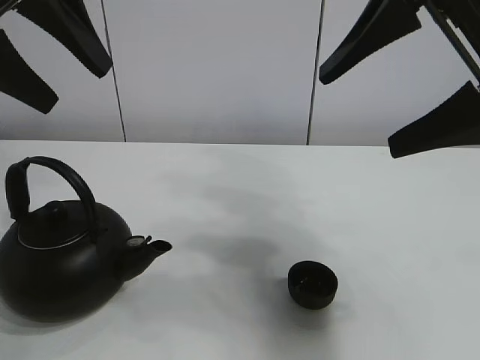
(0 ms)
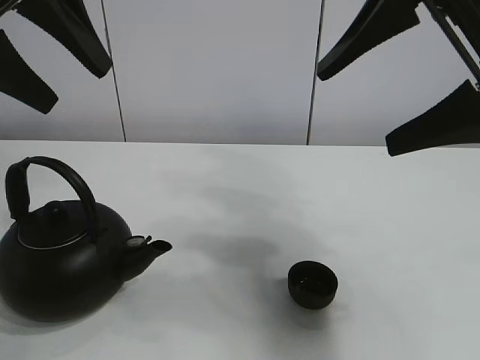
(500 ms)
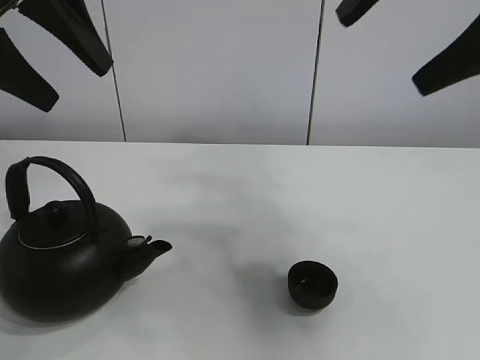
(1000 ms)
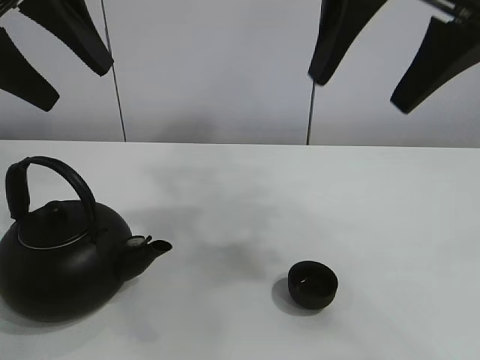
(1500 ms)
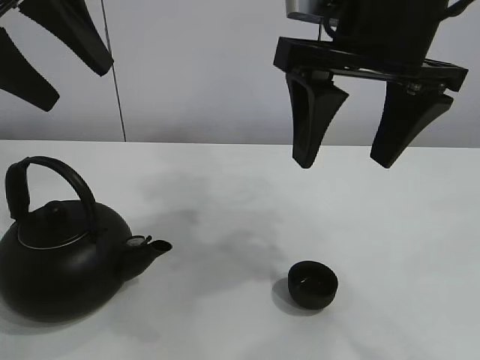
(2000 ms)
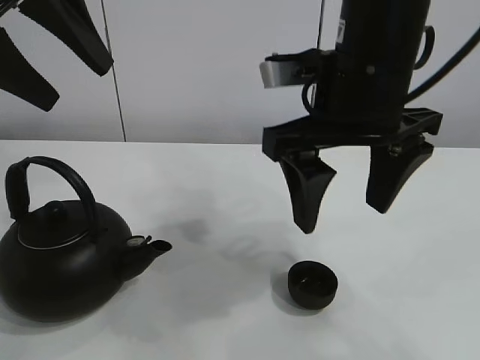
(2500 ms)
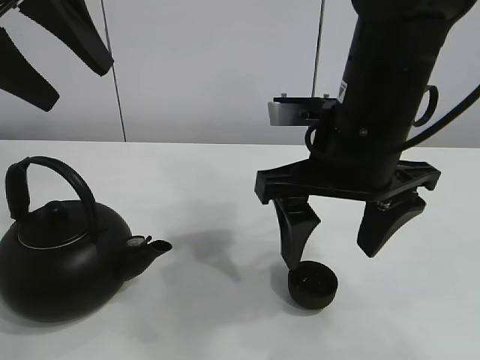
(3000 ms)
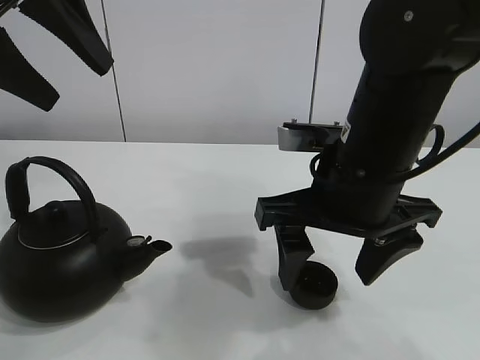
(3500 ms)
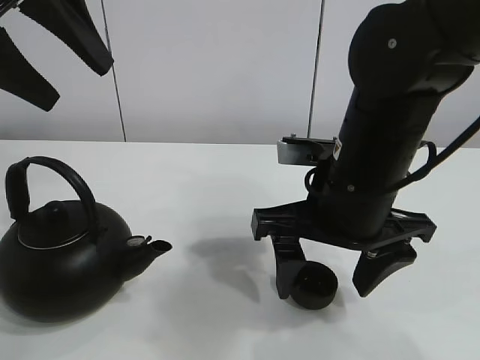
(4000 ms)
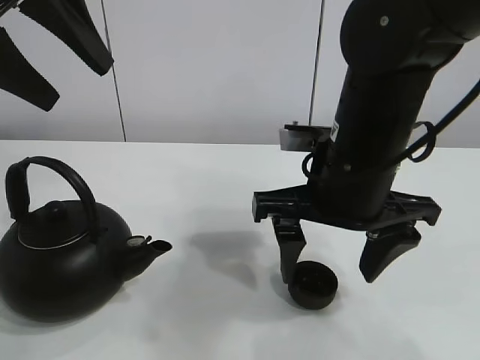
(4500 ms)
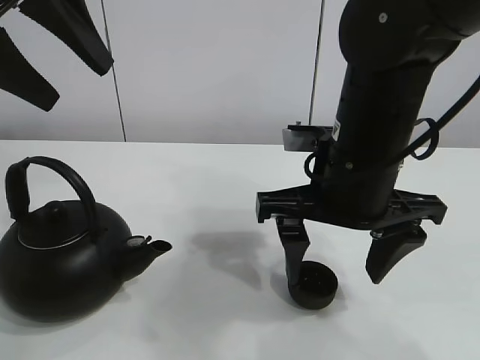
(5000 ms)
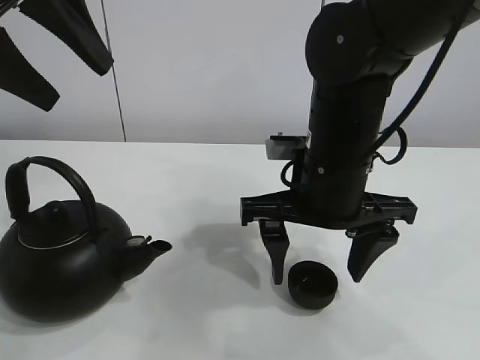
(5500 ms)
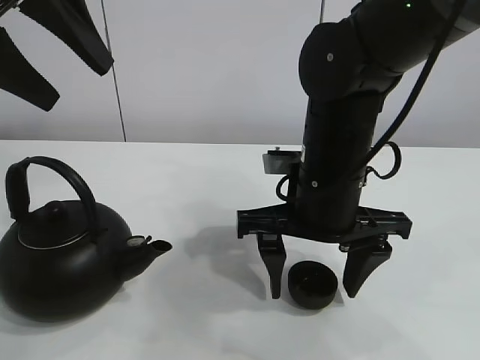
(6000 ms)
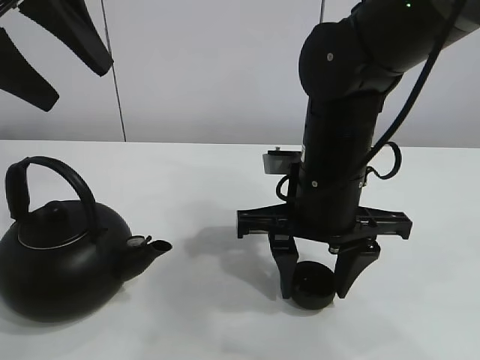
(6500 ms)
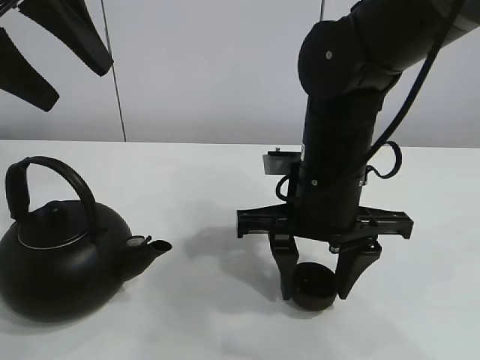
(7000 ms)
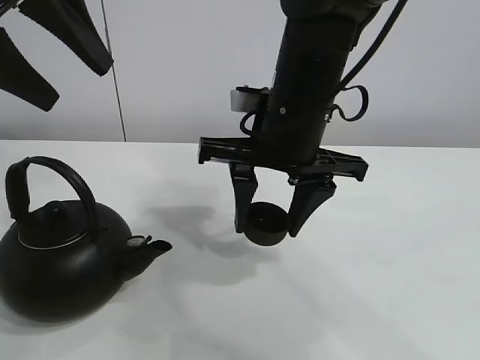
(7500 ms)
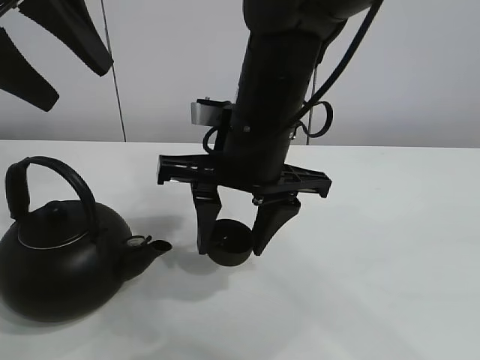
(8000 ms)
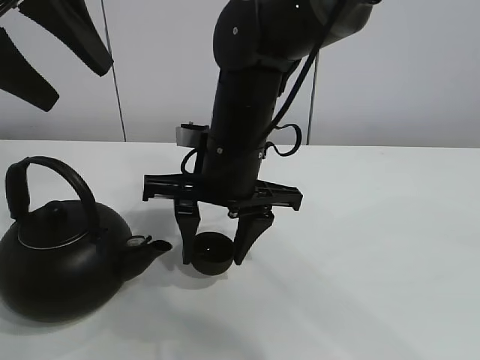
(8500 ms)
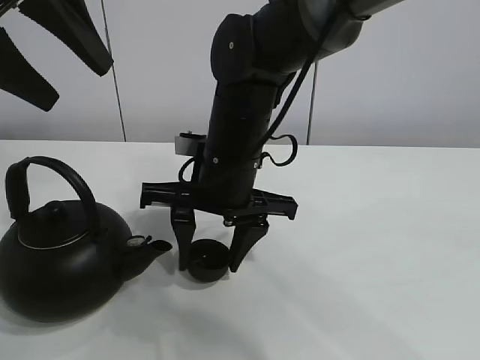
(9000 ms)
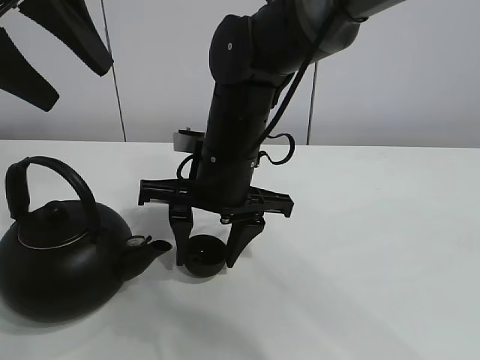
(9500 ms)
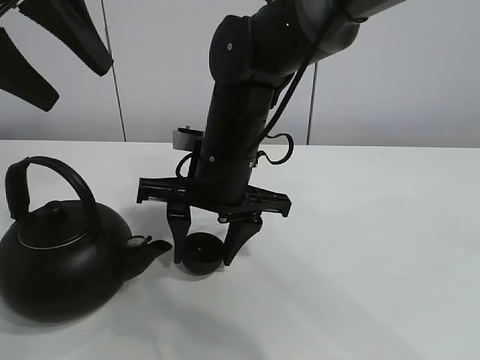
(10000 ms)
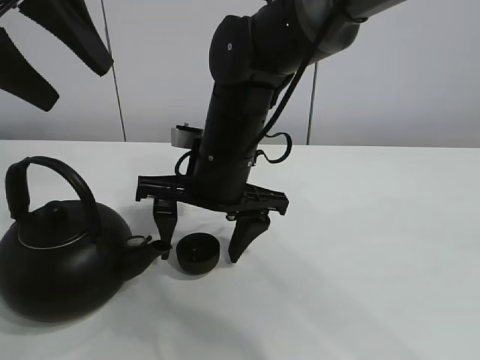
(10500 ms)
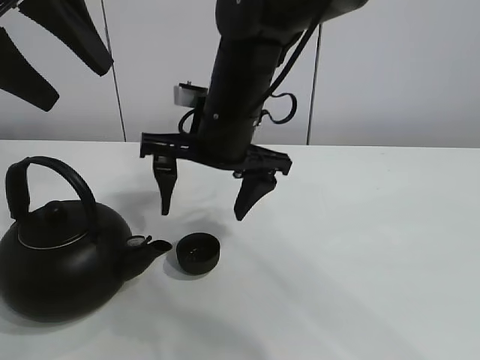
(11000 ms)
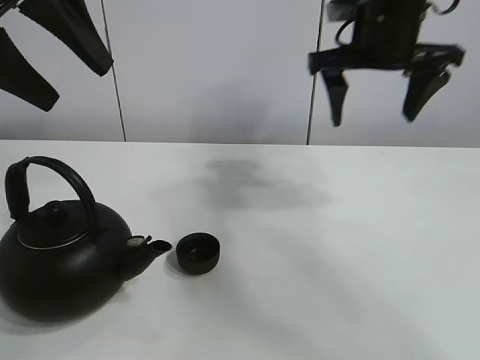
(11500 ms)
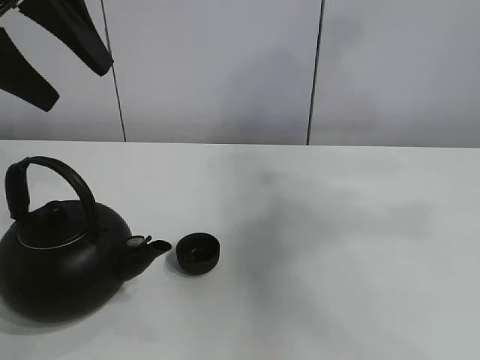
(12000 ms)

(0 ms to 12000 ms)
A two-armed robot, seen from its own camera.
Task of the whole recording: pour tea into the teacup.
Step, 0 ms - 7000 ms: Pick up the teacup with the right gripper.
Step, 7500 ms - 10000 ms: Place the teacup in the center of view with the right gripper.
2000 ms - 4000 ms: The right gripper moves downward, some 15 cm.
4000 ms - 6000 ms: The grippers make only small movements.
6000 ms - 8000 ms: The right gripper moves to the left, roughly 5 cm, and closes up.
8000 ms - 10000 ms: The right gripper changes place by approximately 5 cm.
10000 ms - 12000 ms: The right gripper is displaced to the right and upward by some 50 cm, and opens its fingers.

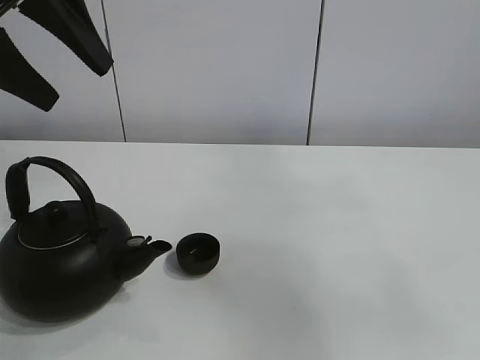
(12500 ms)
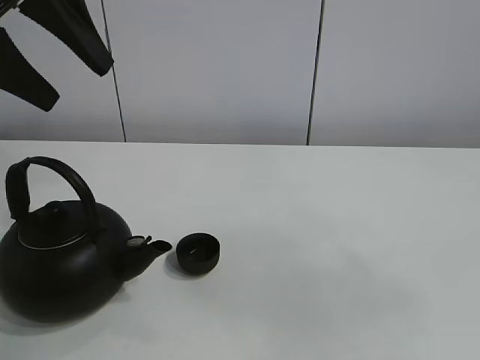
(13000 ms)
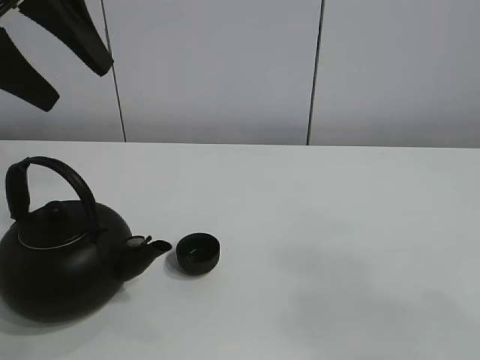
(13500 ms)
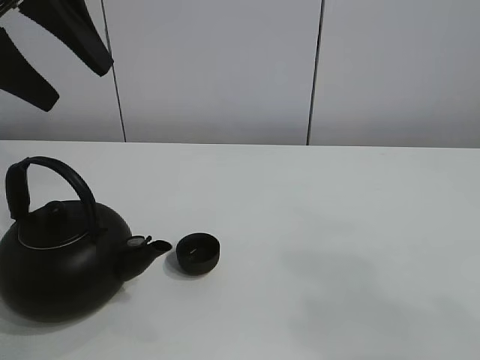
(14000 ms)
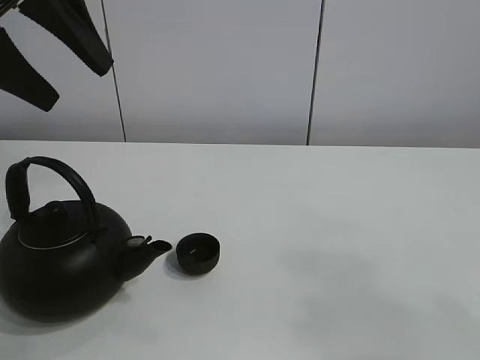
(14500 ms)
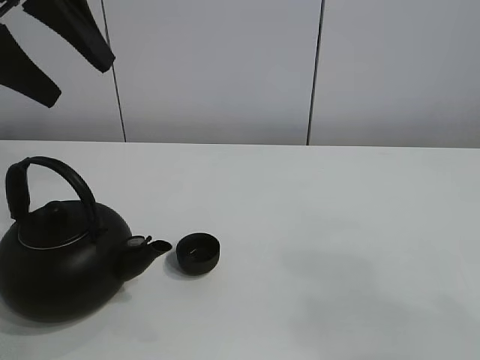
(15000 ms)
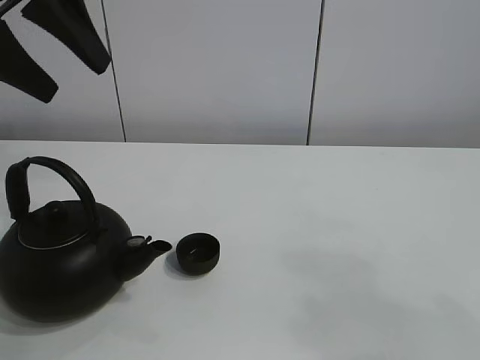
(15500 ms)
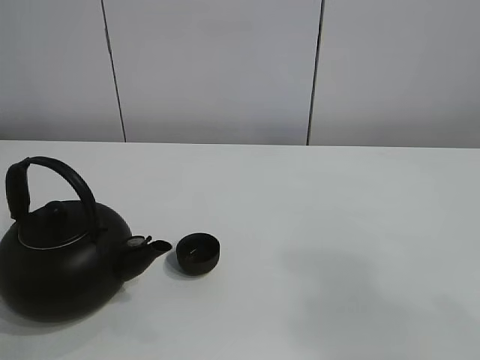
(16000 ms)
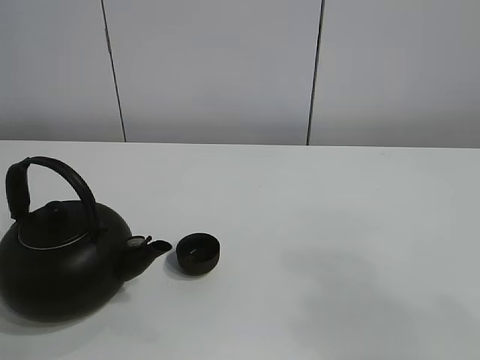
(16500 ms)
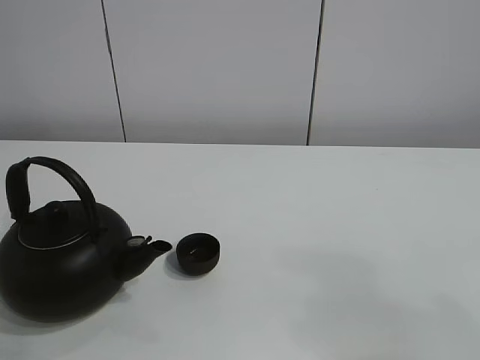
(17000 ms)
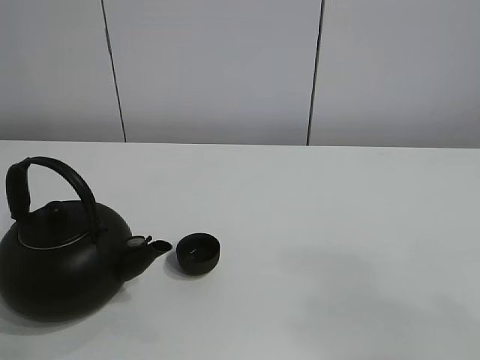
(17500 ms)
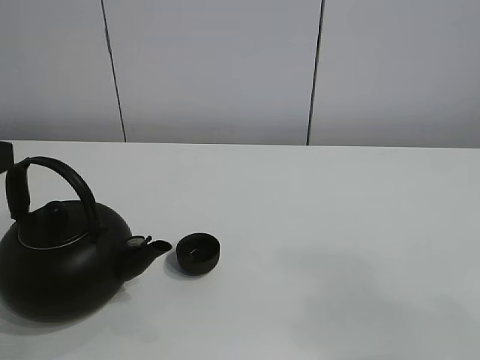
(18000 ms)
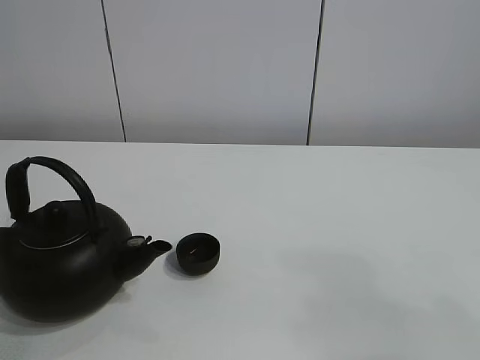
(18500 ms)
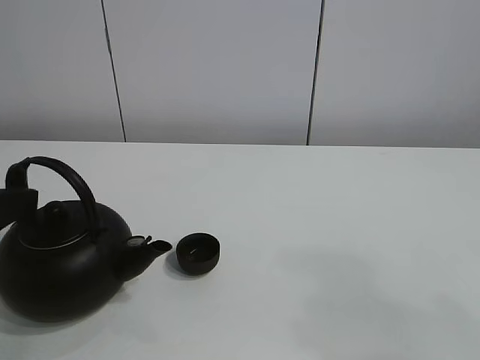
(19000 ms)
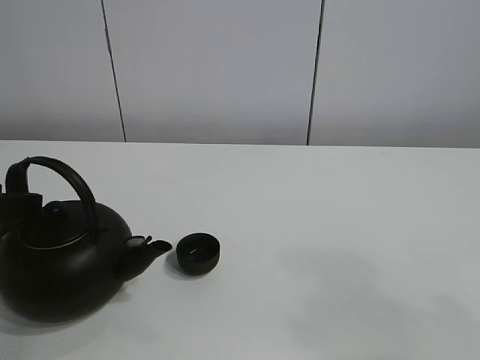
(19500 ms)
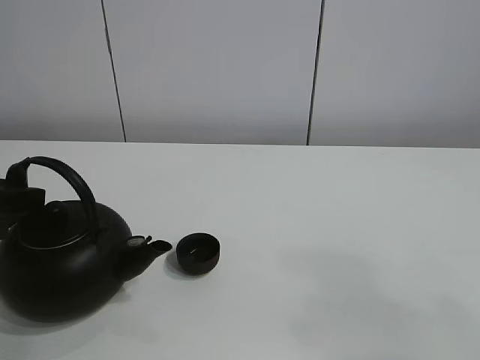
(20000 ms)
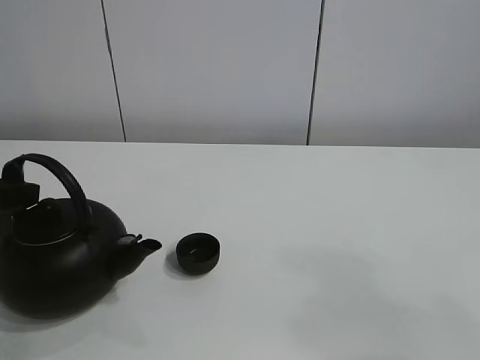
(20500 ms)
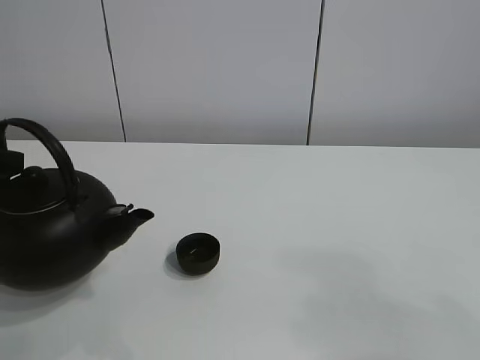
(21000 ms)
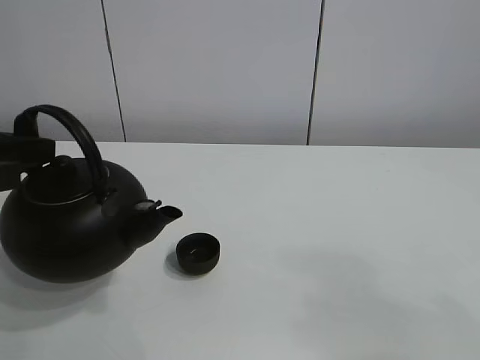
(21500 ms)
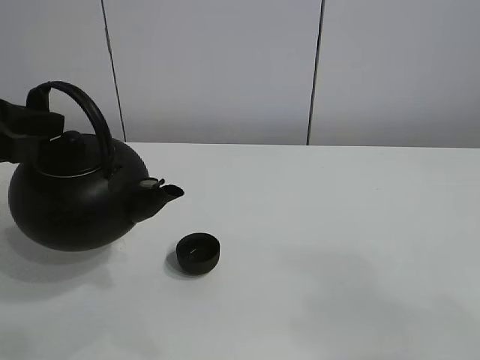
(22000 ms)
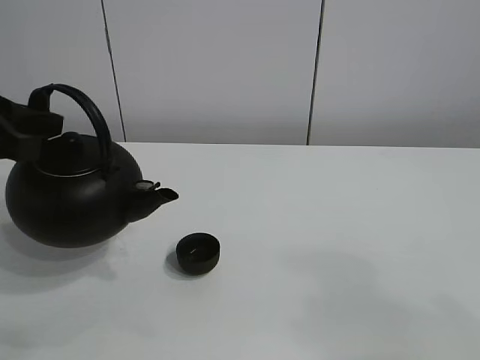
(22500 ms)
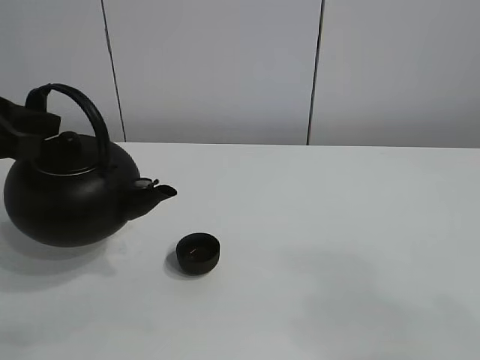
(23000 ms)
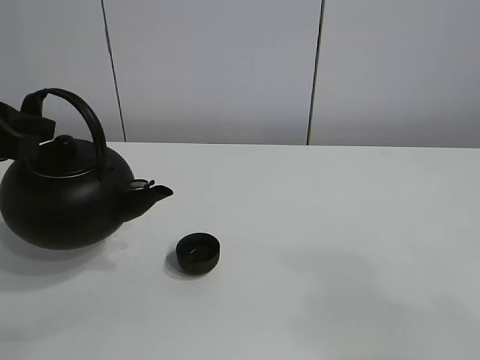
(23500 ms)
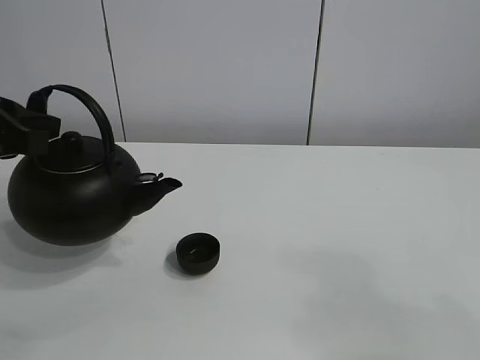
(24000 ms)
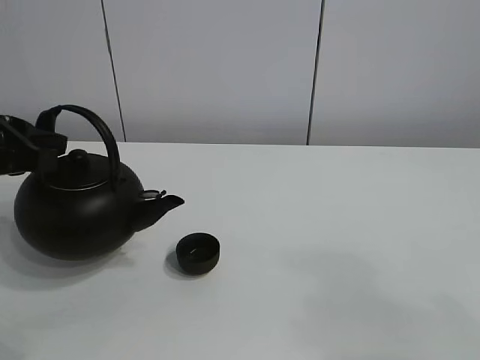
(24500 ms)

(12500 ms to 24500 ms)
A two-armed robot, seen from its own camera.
Task of the whole recording: pour tea into the teacup.
Step, 12500 ms - 20500 ms: Pick up the teapot with the left gripper.
12500 ms - 14500 ms: The right gripper goes some 20 cm downward.
14500 ms - 16500 ms: The left gripper is displaced backward, upward and to the left by some 15 cm.
18500 ms - 20500 ms: The left gripper heads forward, covering some 5 cm, and closes.
20500 ms - 22500 ms: The left gripper travels upward by roughly 5 cm.
22500 ms - 24500 ms: There are only small adjustments of the grippers.

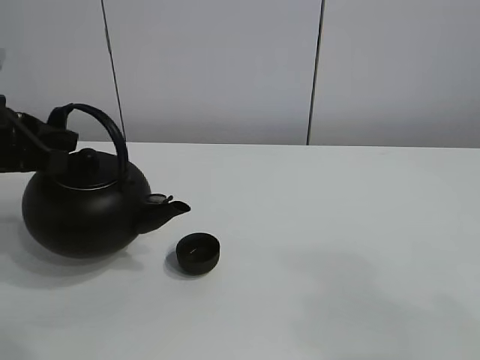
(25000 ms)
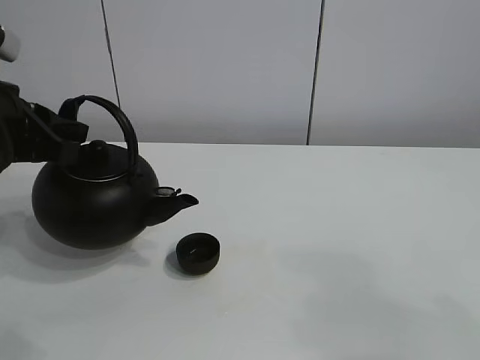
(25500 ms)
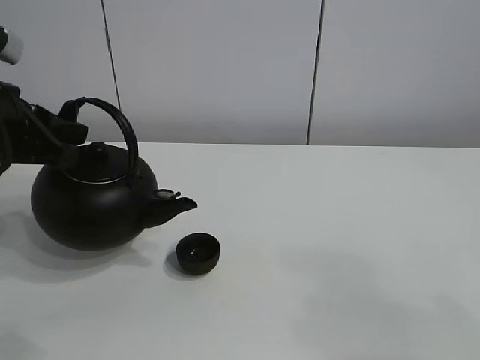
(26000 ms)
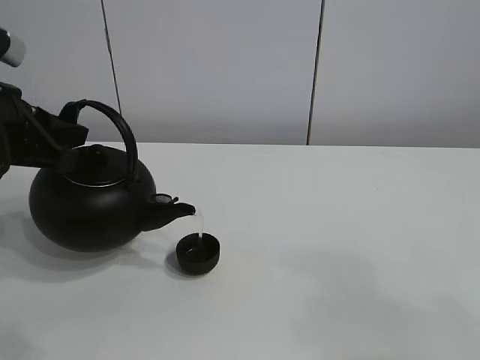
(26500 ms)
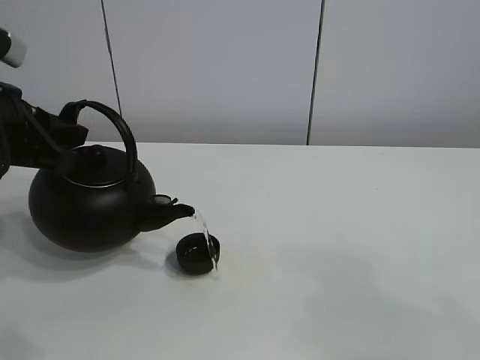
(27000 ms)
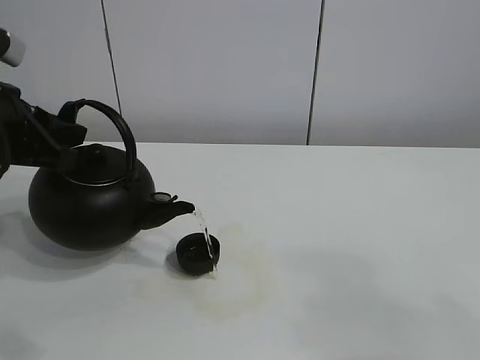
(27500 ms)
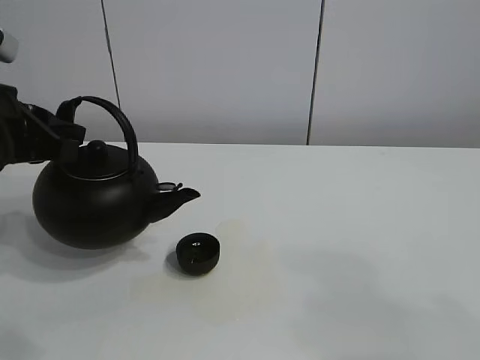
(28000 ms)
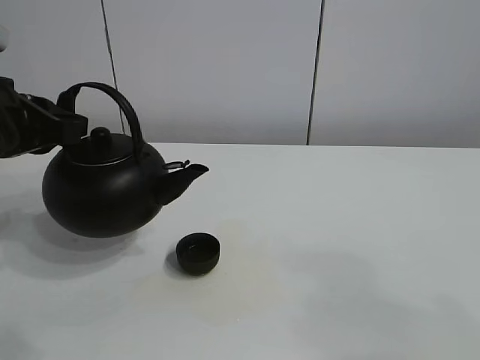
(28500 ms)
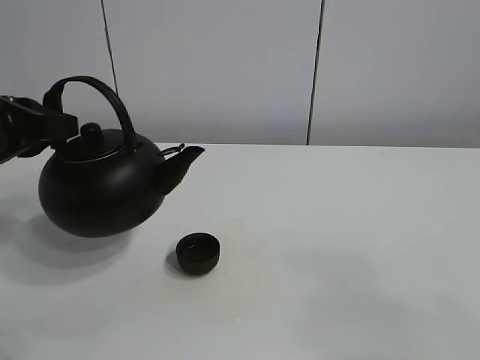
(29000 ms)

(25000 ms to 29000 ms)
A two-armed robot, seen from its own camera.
Task of the whole recording: pour tea into the teacup.
Step, 25000 ms - 27500 ms: Pour tea into the teacup with the left gripper.
25000 ms - 27000 ms: The grippers make only small movements.
